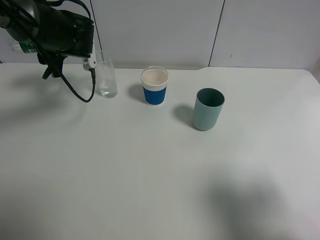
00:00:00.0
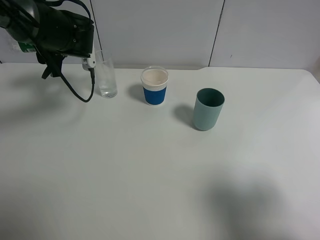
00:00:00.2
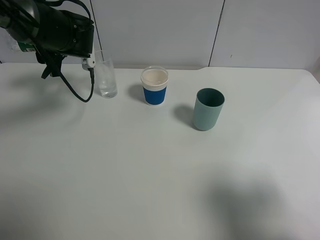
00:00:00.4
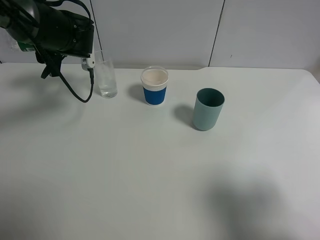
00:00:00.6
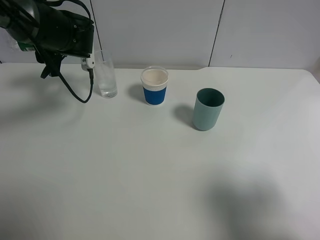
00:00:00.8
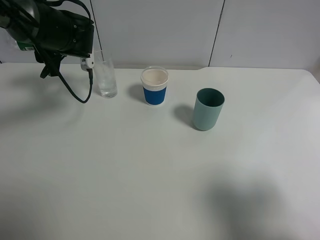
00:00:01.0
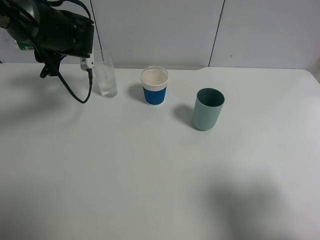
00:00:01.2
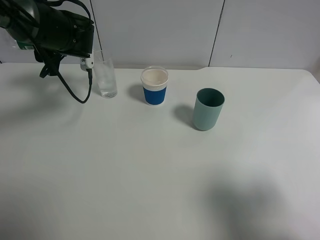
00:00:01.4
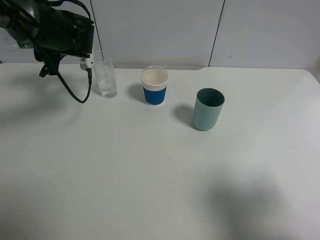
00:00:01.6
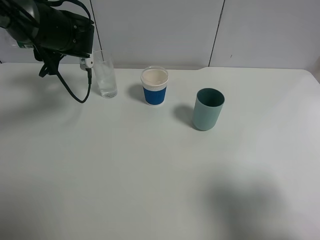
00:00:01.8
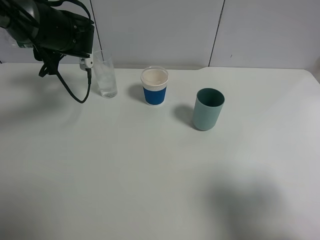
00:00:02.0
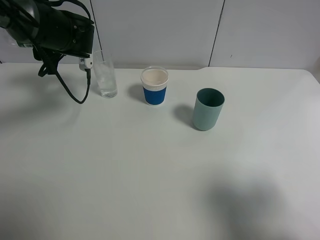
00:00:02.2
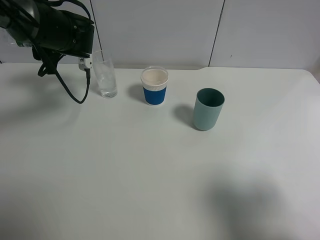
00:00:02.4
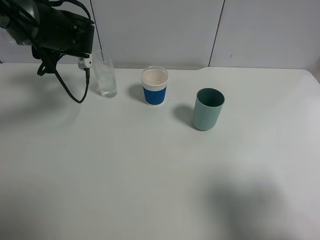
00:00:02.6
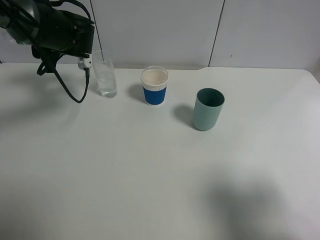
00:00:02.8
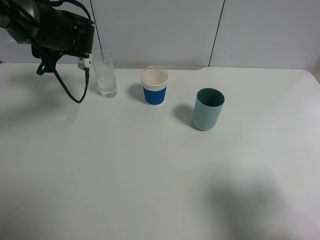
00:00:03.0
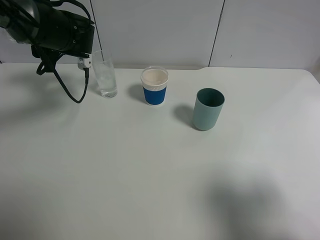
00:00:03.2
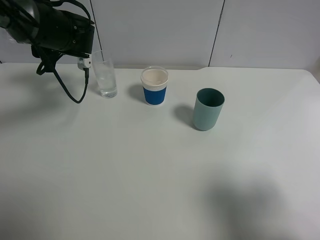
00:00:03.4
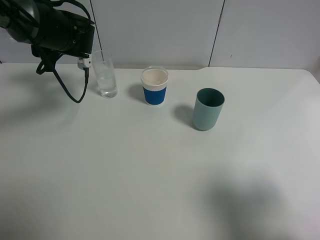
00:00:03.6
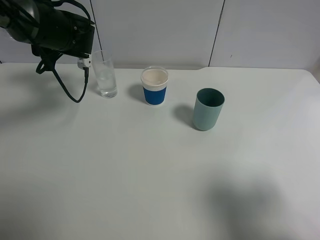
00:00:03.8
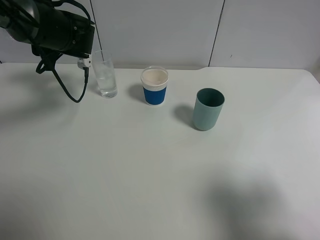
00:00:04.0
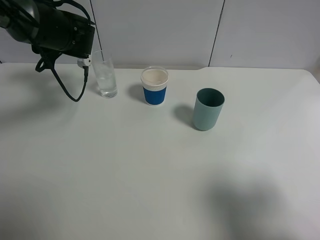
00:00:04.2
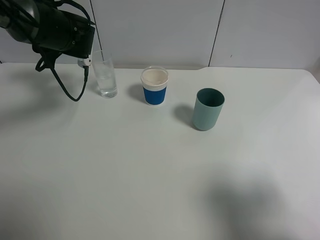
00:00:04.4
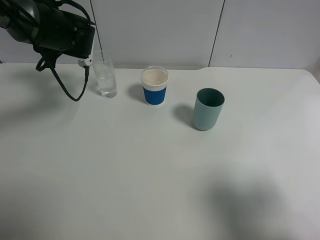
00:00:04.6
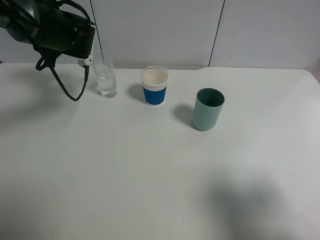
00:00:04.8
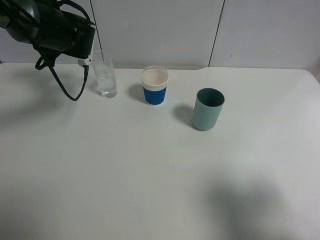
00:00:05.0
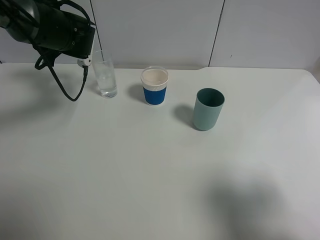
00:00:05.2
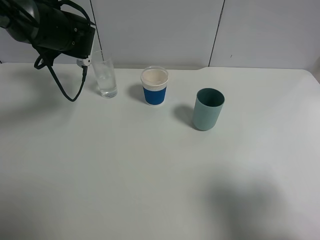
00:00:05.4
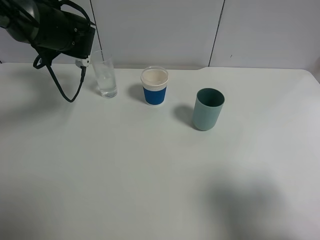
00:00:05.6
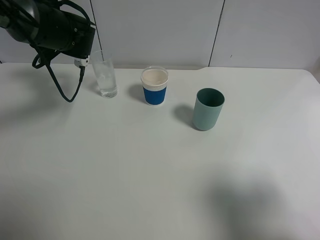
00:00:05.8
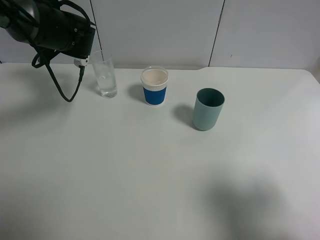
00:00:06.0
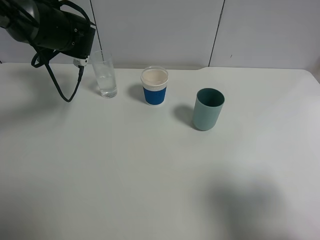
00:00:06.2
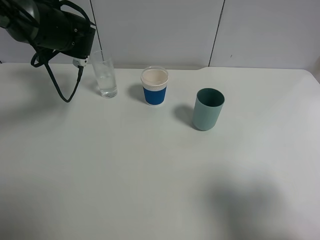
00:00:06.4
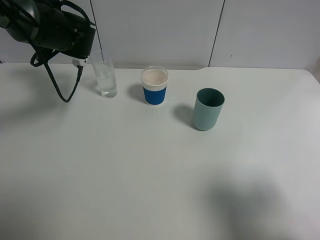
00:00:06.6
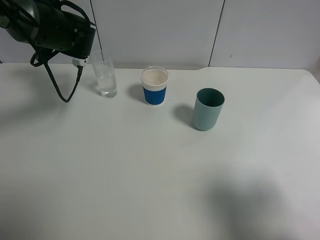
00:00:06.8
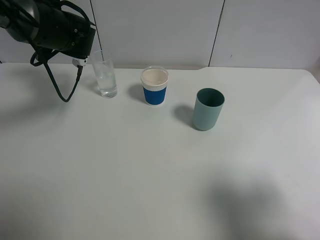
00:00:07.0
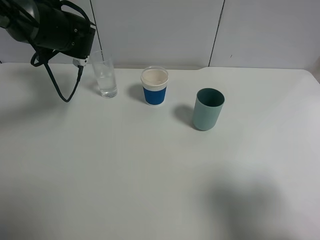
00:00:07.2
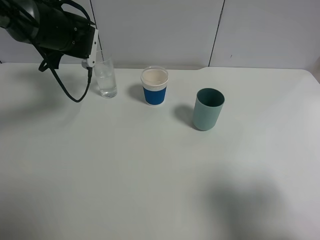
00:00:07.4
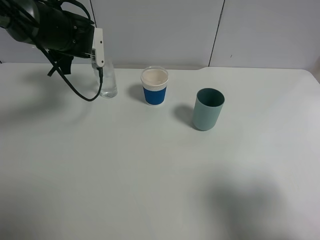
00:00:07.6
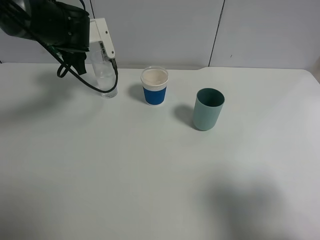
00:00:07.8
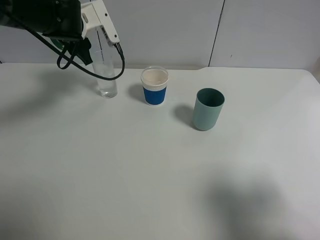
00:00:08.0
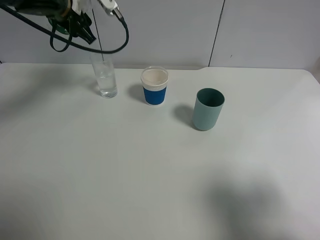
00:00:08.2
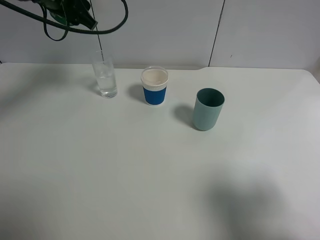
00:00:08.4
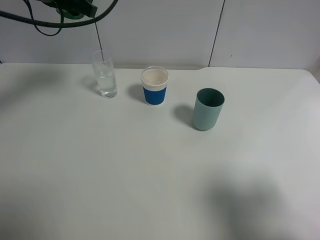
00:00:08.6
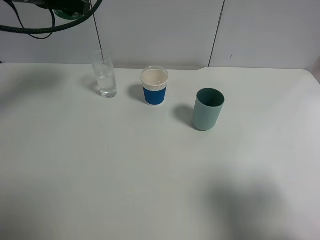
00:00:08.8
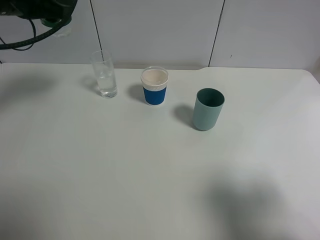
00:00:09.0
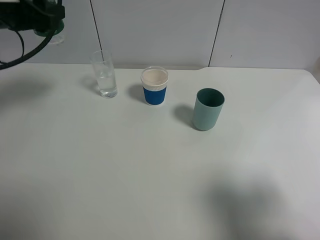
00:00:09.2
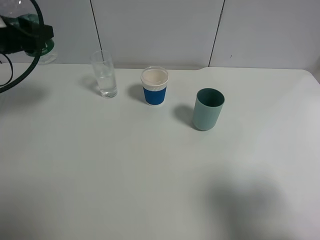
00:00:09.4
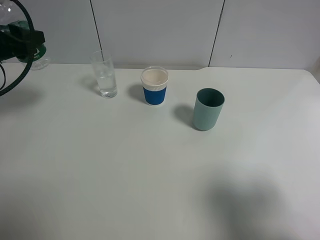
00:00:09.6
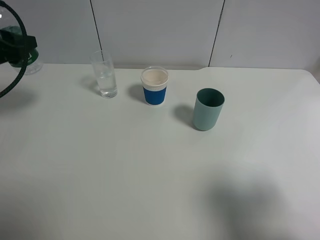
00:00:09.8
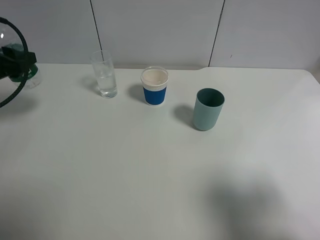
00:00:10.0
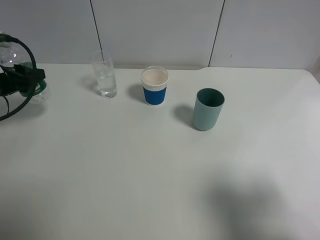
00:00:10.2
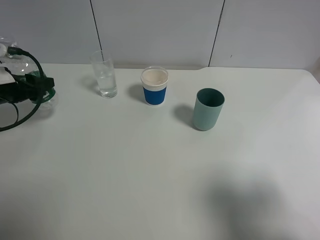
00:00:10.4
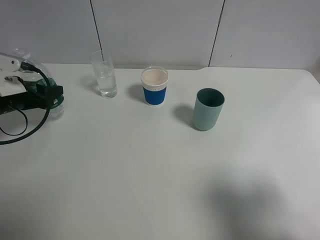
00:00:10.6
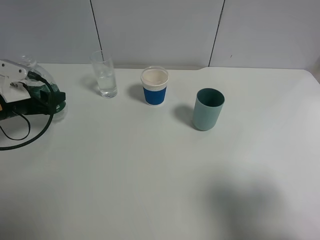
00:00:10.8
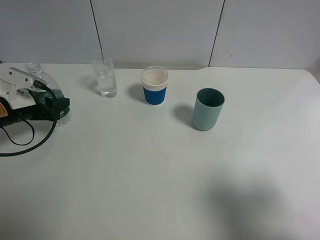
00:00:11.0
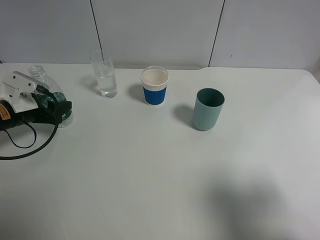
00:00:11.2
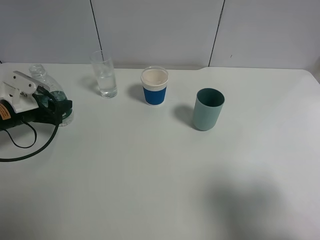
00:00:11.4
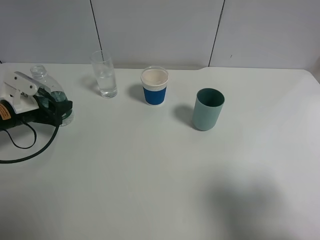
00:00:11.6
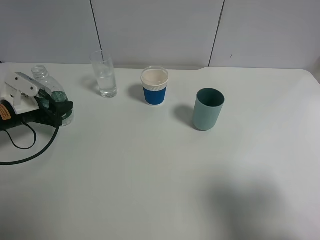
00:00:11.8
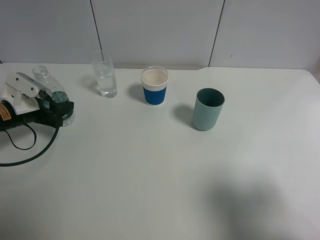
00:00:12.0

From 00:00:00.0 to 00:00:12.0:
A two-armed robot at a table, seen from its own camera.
Task of the whole recording: use a gripper to hold the bottle of the drink and pour it into a random cup.
Step, from 00:00:00.0 to 00:00:07.8: Pour the mineral water into the glass with the left gripper.
From 00:00:00.0 to 00:00:01.6: The two grippers keep their place.
From 00:00:01.6 to 00:00:03.0: Neither gripper changes place.
From 00:00:03.0 to 00:00:04.4: Both grippers stay about where they are.
From 00:00:04.4 to 00:00:06.0: The grippers move only a little.
From 00:00:07.6 to 00:00:09.0: The left gripper heads upward and backward, covering some 15 cm.
From 00:00:09.0 to 00:00:10.4: The left gripper heads downward and to the left, covering about 15 cm.
From 00:00:10.4 to 00:00:12.0: The left gripper heads downward, covering roughly 5 cm.

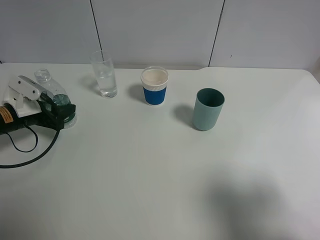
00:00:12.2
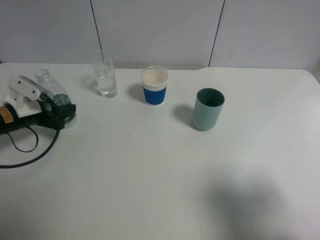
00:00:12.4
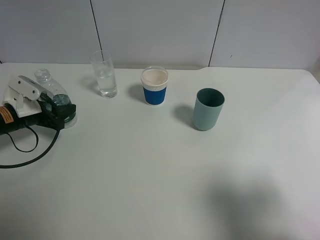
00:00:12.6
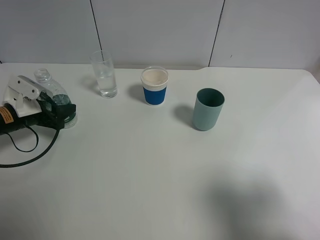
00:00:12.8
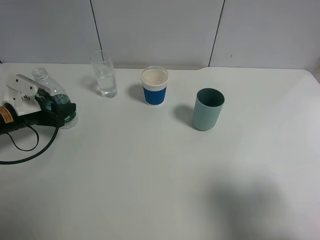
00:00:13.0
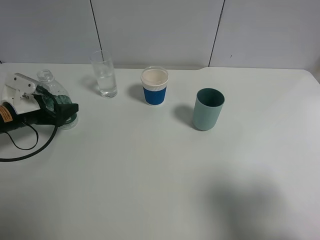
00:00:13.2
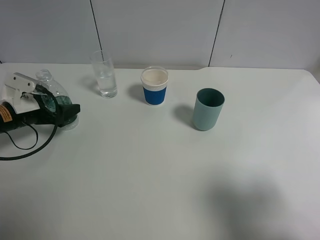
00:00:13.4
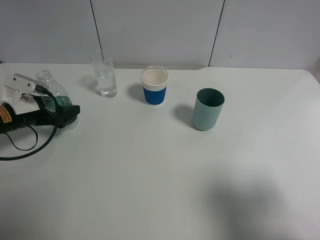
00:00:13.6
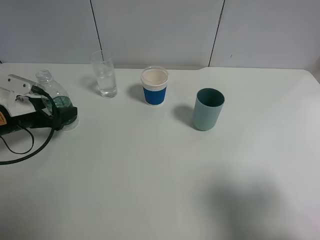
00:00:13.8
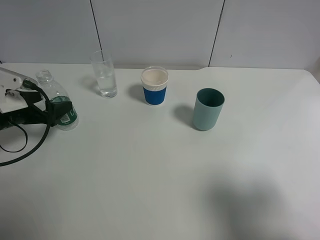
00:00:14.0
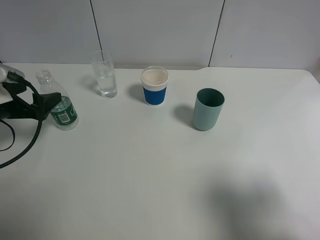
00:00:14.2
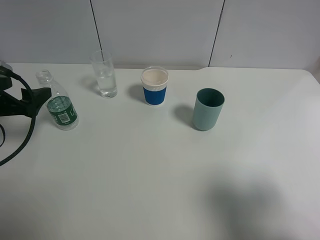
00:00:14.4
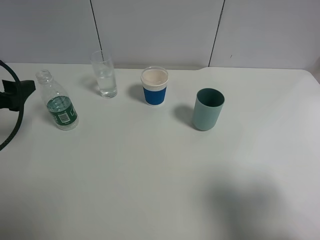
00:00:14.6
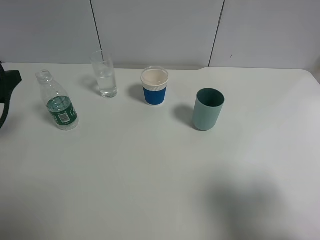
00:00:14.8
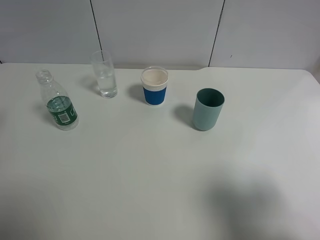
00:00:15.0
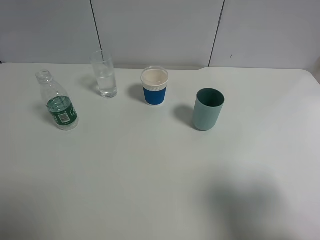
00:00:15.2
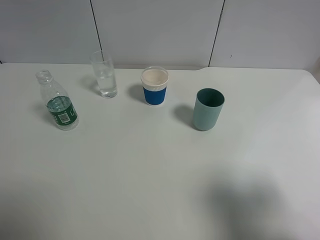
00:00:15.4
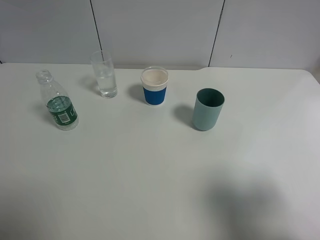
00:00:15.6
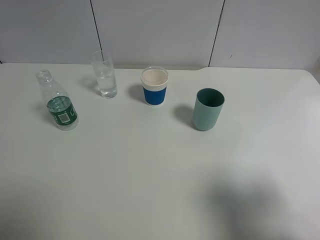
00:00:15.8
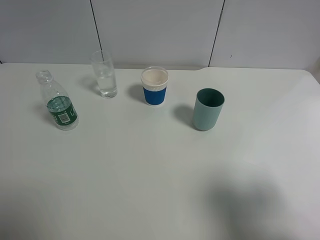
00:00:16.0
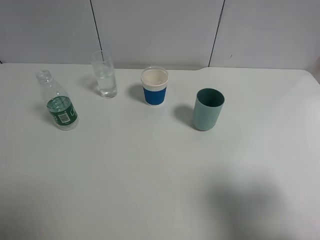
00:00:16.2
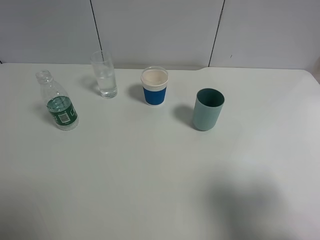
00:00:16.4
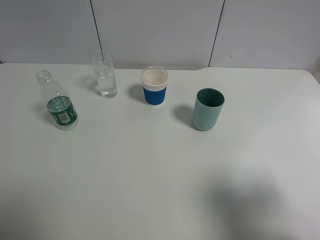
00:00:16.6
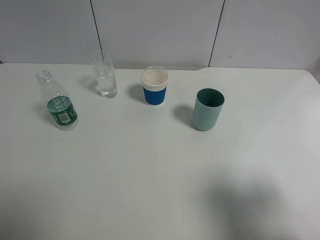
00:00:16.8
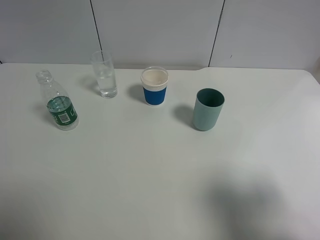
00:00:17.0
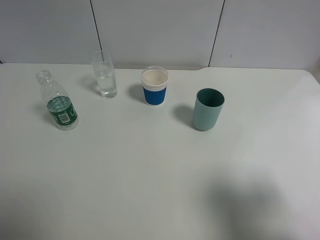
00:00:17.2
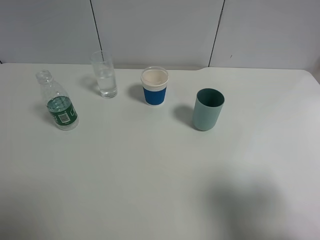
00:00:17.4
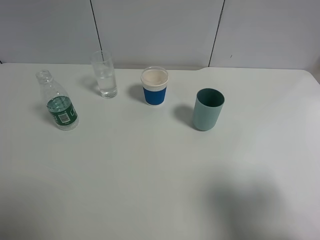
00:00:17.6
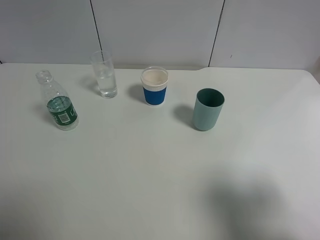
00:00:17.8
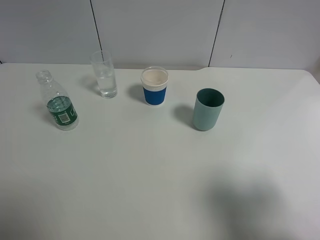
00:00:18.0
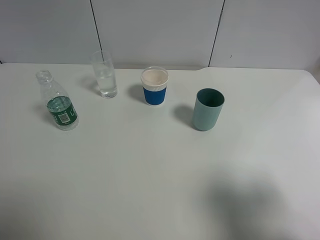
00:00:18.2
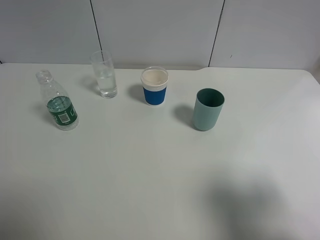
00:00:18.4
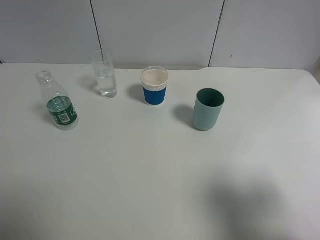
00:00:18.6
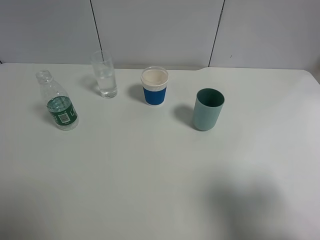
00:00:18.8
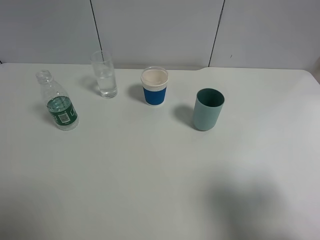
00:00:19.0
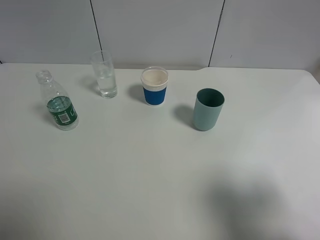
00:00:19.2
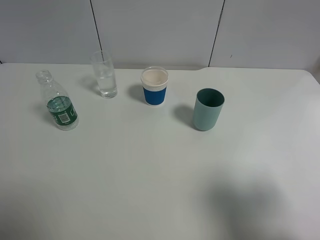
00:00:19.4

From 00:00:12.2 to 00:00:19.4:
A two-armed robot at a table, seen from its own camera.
Task of the whole recording: use a gripper to hold the bottle of the drink and pour it into a random cup.
From 00:00:12.2 to 00:00:13.6: The left gripper opens.
From 00:00:13.6 to 00:00:15.0: The left gripper heads upward and backward, covering about 20 cm.
From 00:00:18.0 to 00:00:19.4: Neither gripper changes place.
